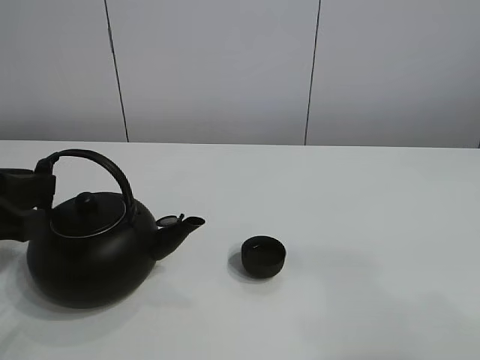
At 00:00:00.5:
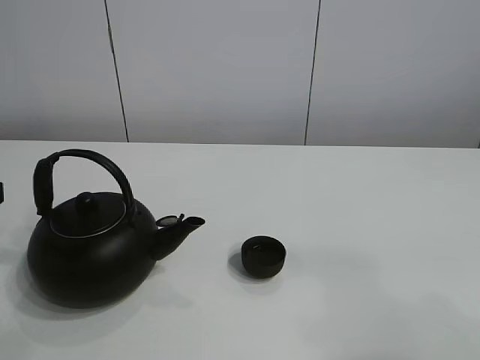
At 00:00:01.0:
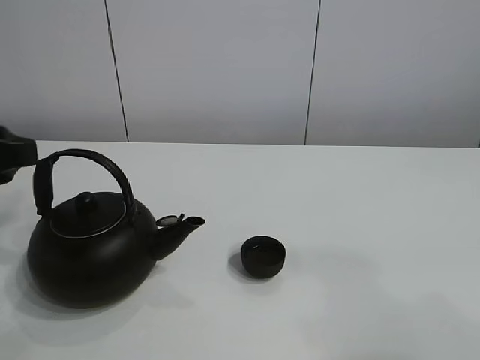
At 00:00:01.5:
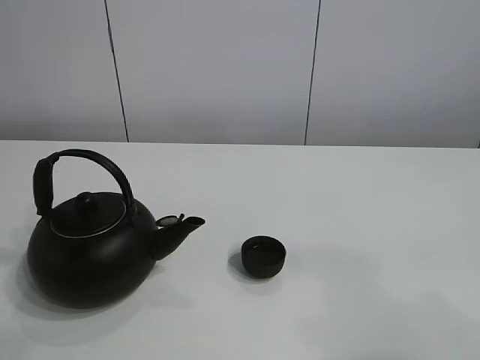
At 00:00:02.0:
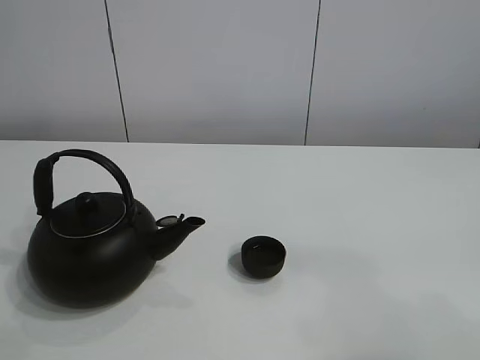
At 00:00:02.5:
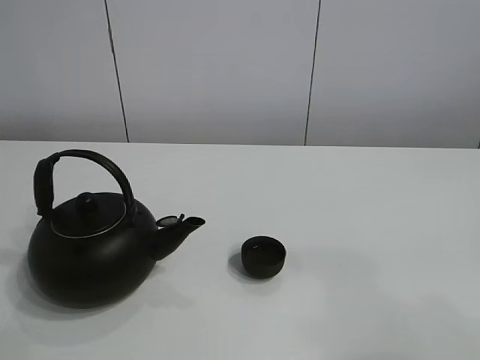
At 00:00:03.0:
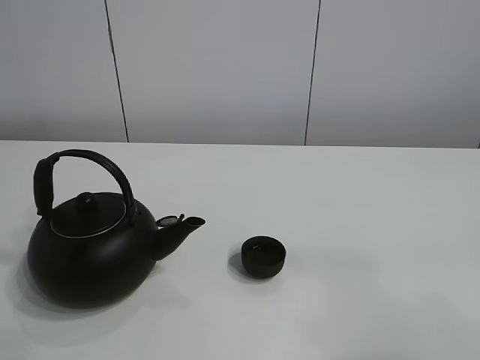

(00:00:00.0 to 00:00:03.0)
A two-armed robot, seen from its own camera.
Task of the whole recording: pour tea into the teacup.
00:00:00.0 - 00:00:01.5: The left gripper is displaced upward, forward and to the left by about 15 cm.

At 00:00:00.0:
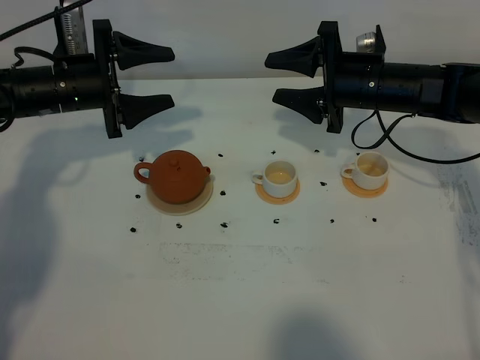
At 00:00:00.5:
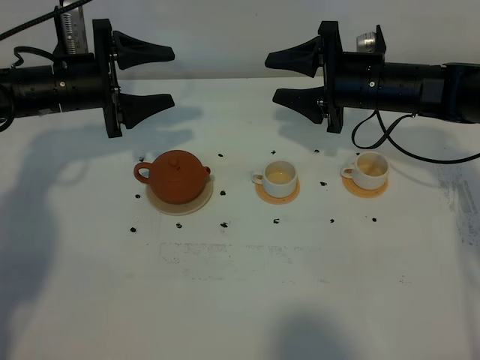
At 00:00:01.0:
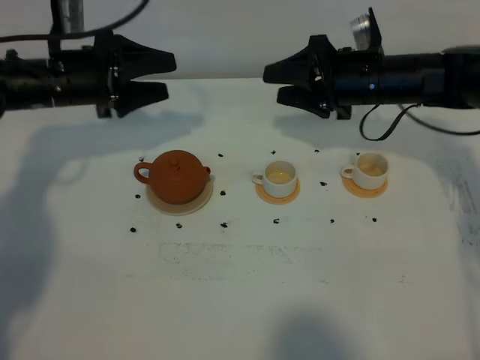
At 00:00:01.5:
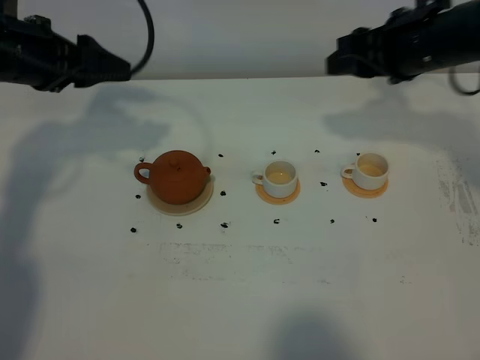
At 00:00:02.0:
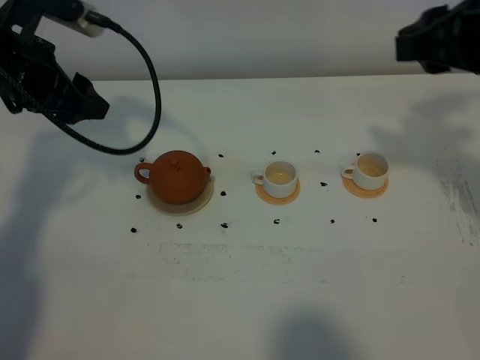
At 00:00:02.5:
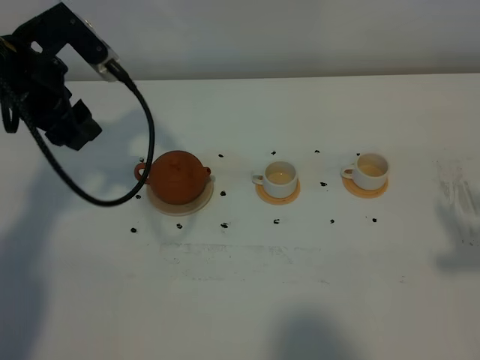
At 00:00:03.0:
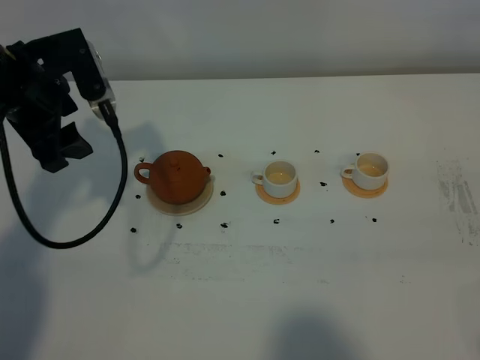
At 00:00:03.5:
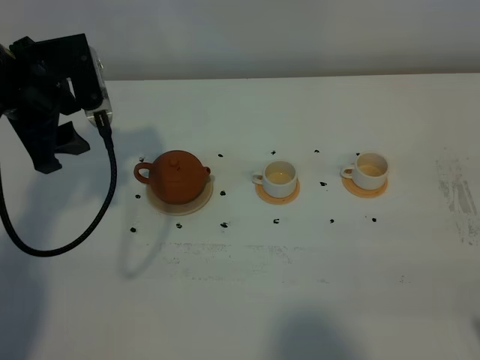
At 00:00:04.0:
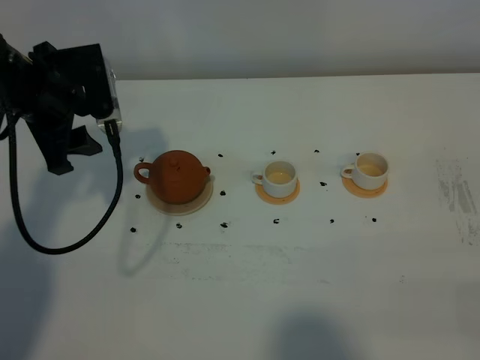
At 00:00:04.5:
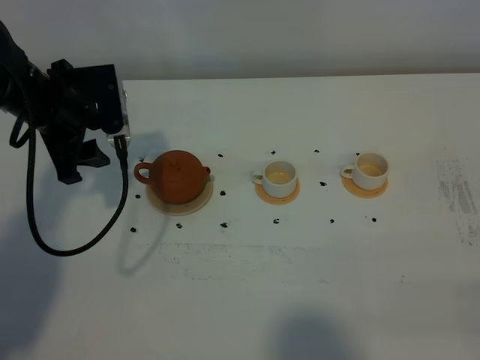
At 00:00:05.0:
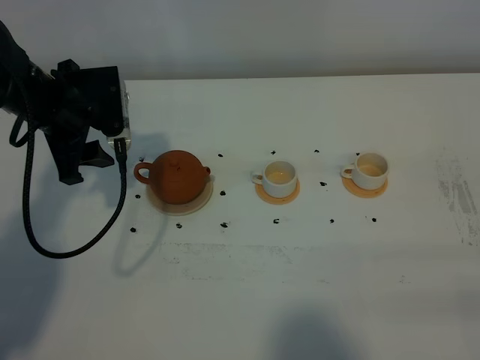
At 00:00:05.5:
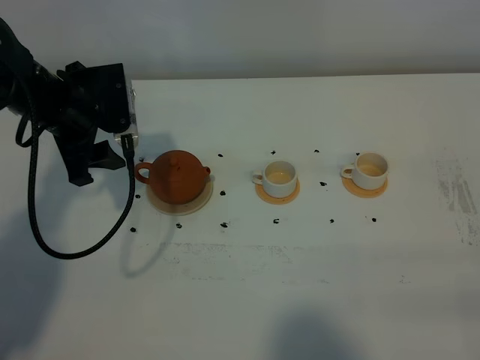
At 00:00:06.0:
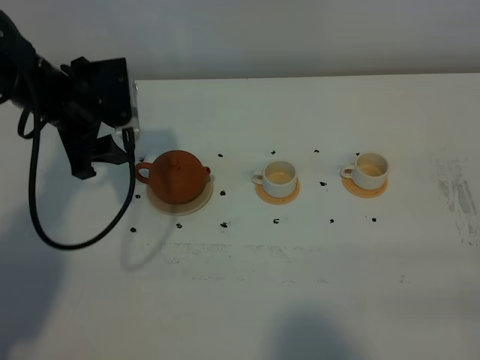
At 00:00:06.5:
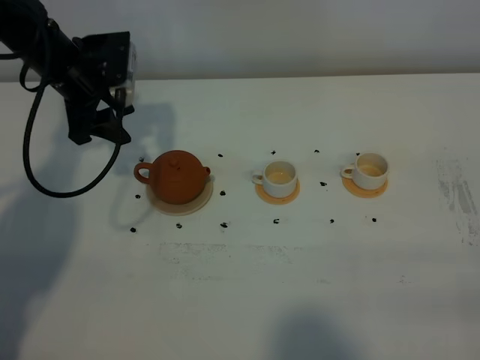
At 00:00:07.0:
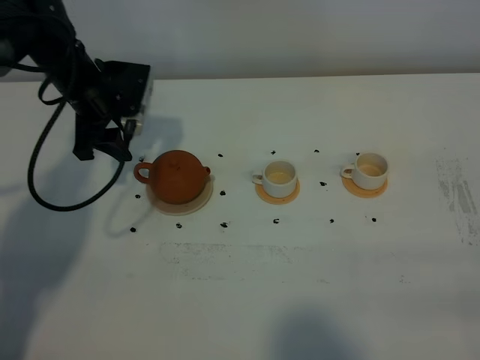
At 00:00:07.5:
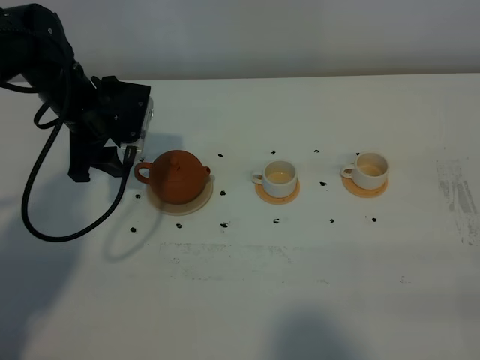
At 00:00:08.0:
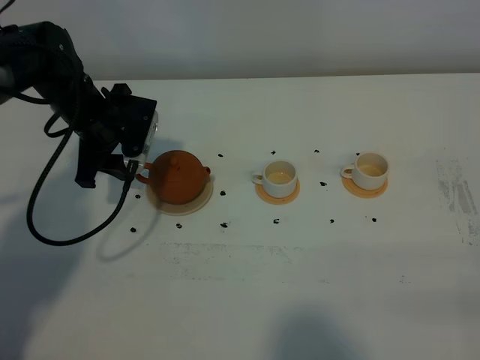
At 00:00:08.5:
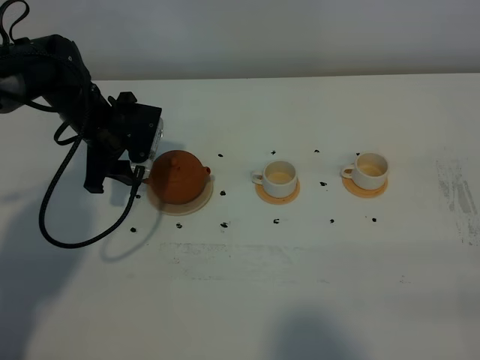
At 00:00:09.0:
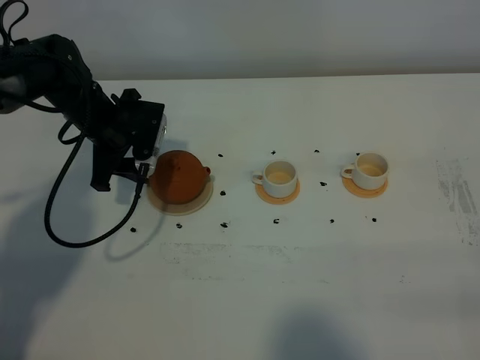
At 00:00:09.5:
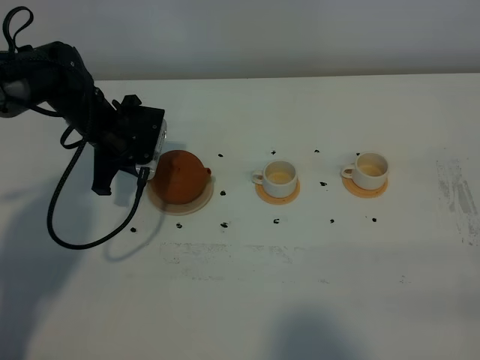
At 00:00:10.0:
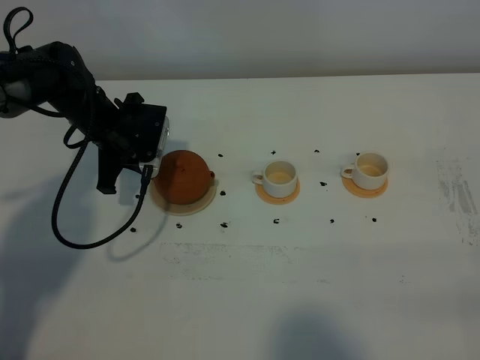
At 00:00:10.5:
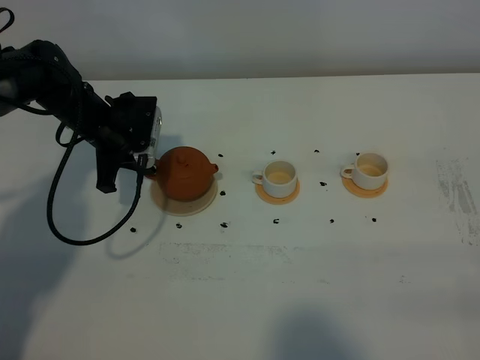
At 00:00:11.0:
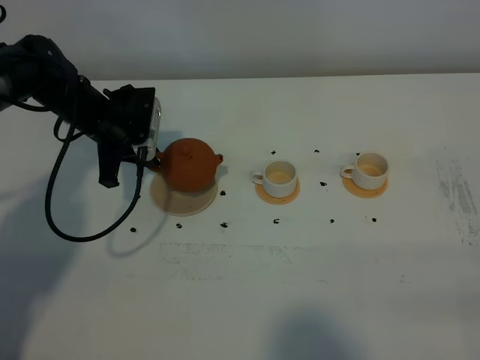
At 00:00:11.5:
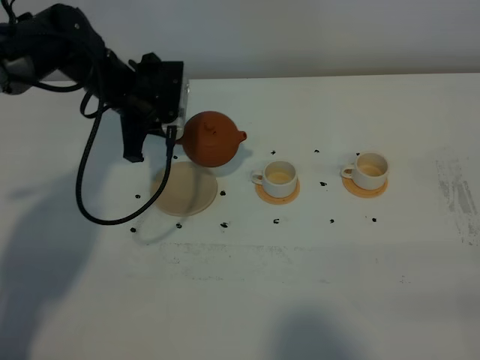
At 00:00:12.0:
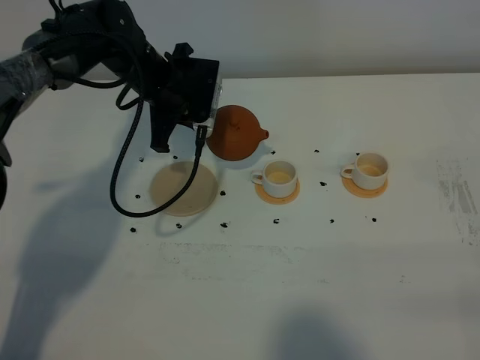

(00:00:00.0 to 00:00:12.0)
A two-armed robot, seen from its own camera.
Task of the whole recording: grasp the brown teapot and pour the tea into the two white teacups one by one, put the brown teapot back in its original place.
Step, 00:00:00.0 - 00:00:10.5: Pick up the teapot with the left gripper.
00:00:00.0 - 00:00:02.0: The right gripper goes roughly 25 cm upward, backward and to the right. Meanwhile the left gripper moves upward and backward, approximately 10 cm.
00:00:02.0 - 00:00:04.0: The right gripper shifts about 30 cm backward and downward.
00:00:06.0 - 00:00:08.0: The left gripper shifts some 5 cm downward.
00:00:08.0 - 00:00:10.0: The left gripper closes up.
00:00:10.0 - 00:00:12.0: The left gripper travels to the right and upward by about 10 cm.

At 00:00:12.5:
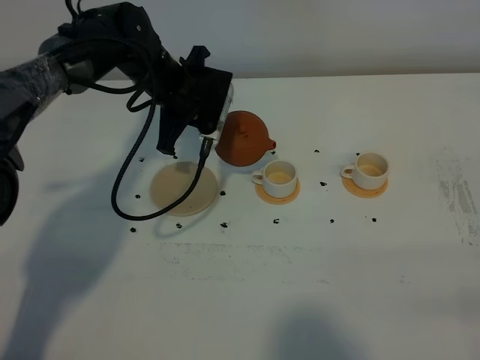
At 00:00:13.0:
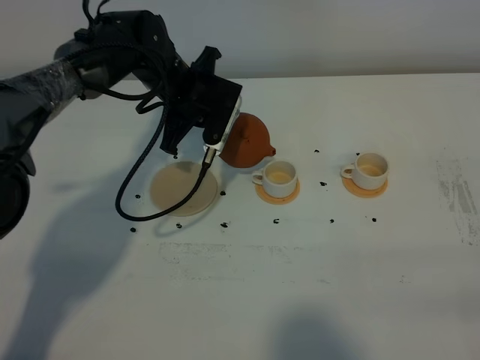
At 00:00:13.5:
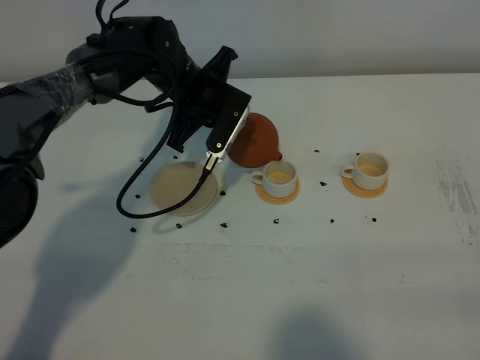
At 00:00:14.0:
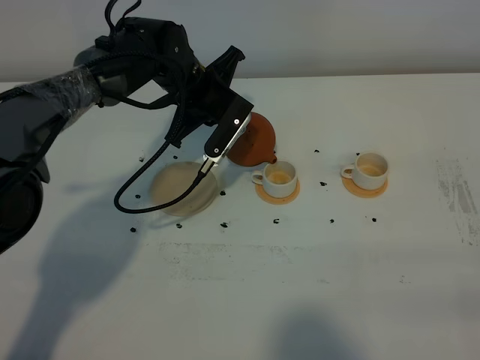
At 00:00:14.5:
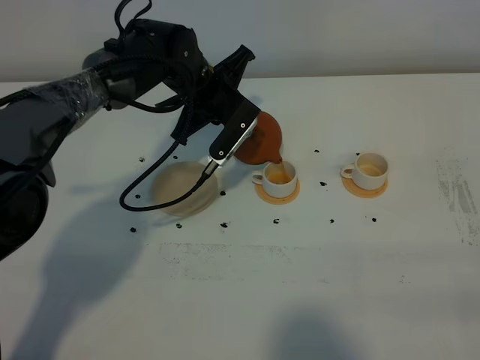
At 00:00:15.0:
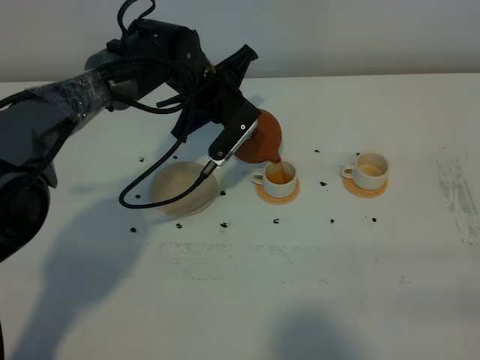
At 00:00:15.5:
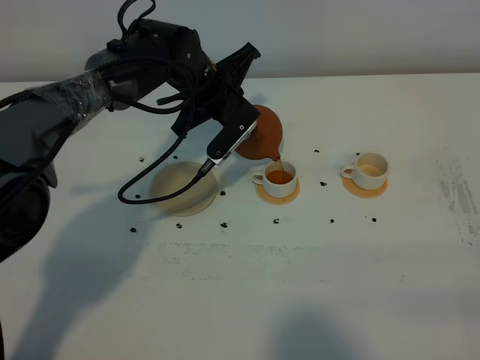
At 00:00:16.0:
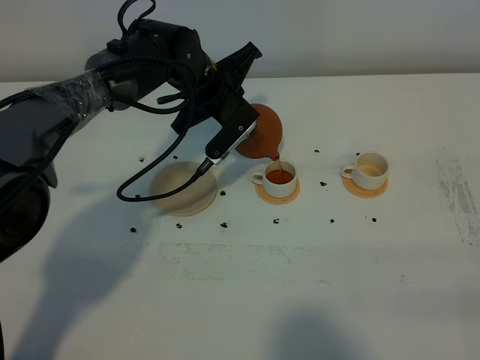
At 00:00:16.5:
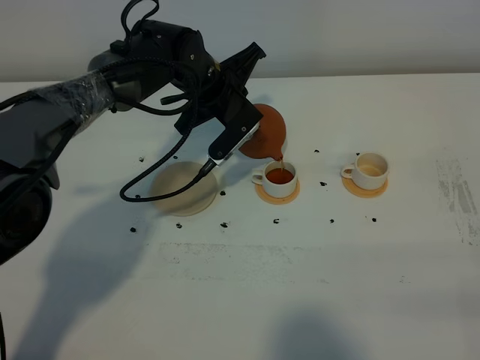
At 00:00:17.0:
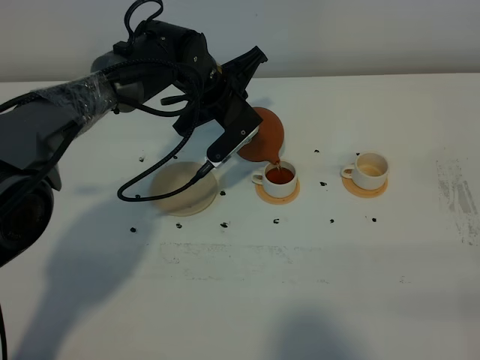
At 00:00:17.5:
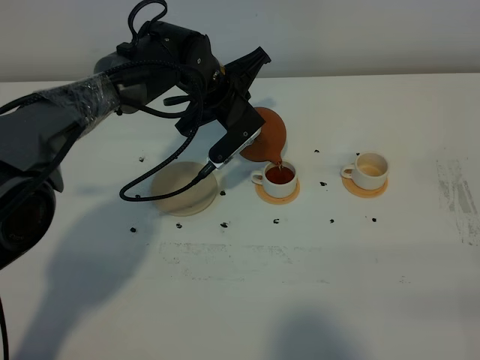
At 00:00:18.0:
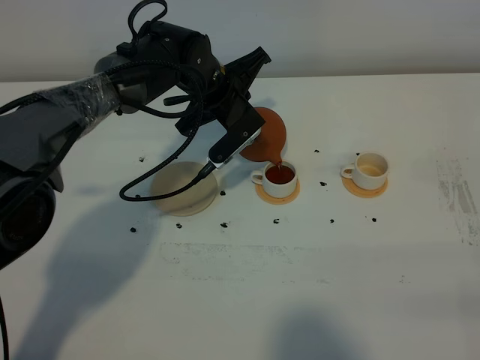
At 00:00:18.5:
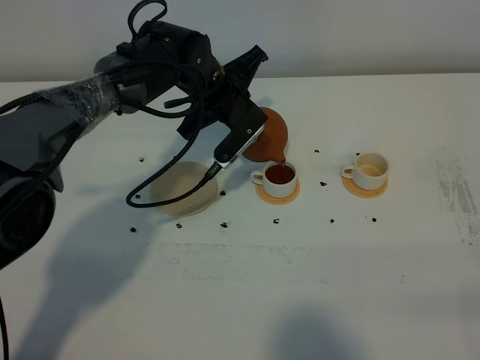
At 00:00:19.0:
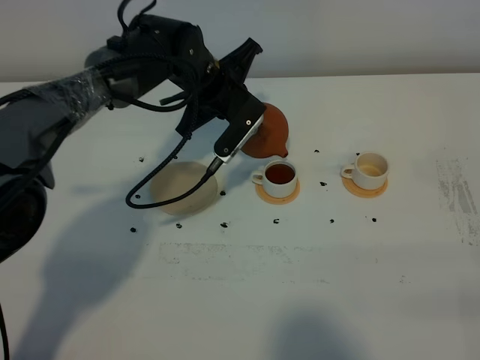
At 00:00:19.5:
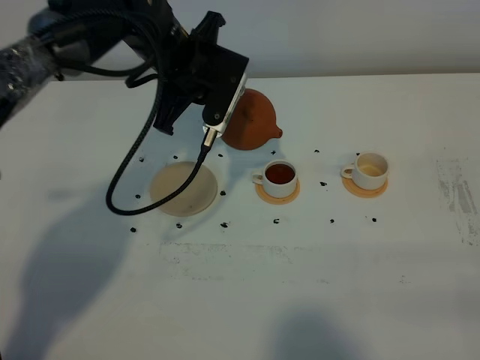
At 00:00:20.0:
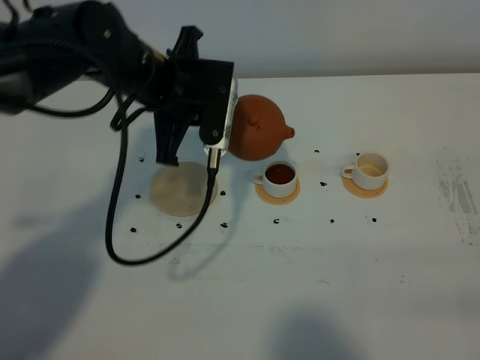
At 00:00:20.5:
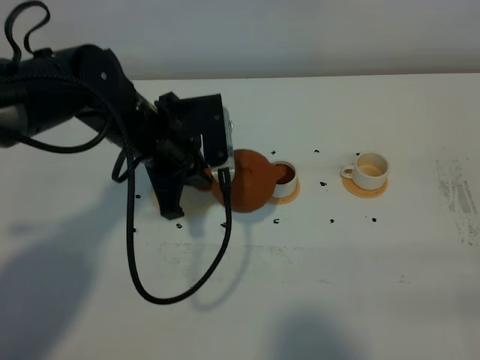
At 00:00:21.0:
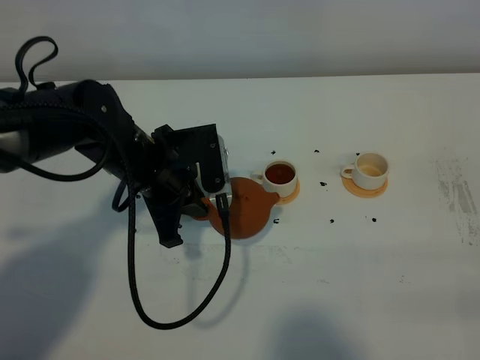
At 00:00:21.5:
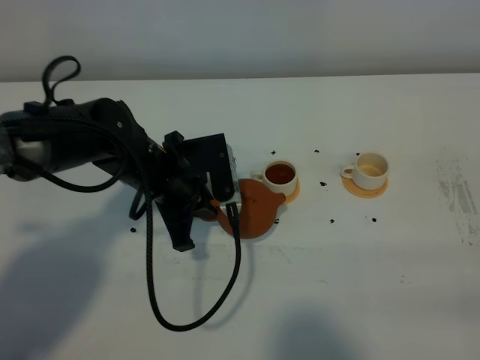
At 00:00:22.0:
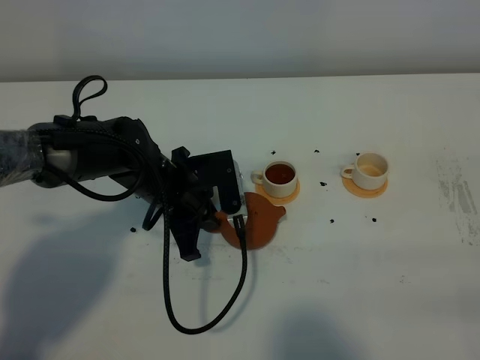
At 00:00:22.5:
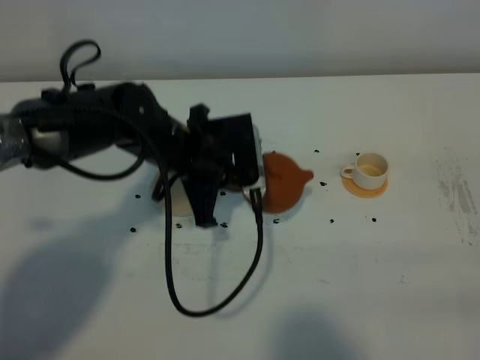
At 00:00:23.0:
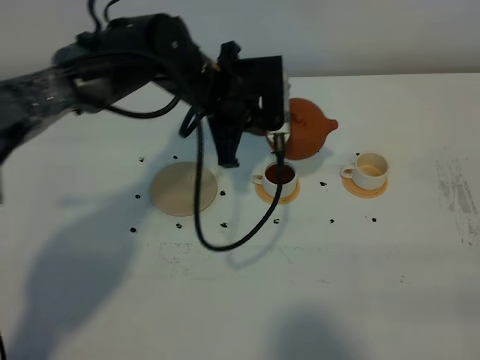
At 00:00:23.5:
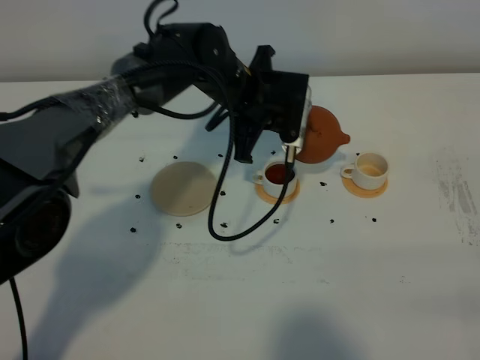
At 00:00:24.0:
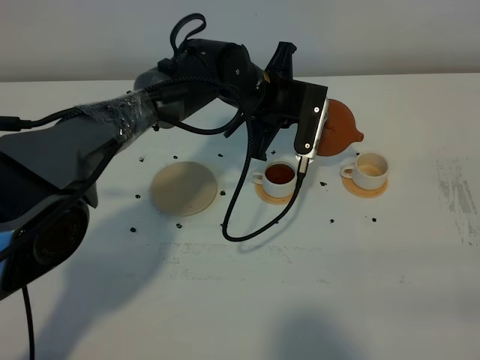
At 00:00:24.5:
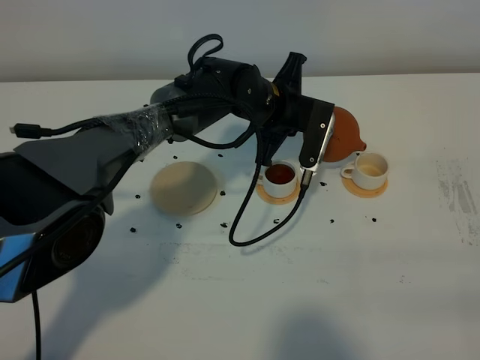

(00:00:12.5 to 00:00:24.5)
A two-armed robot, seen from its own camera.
Task of the whole recording: grasp the brown teapot and pour the tea into the two white teacups one by one, put the brown teapot back in its original place.
00:00:14.5 - 00:00:16.5: The grippers stay close to where they were, moving slightly.
00:00:16.5 - 00:00:18.5: Both grippers stay put.
00:00:18.5 - 00:00:20.5: The left gripper moves backward and to the left, approximately 15 cm.
00:00:20.5 - 00:00:22.5: The left gripper moves some 10 cm downward and comes back.
00:00:22.5 - 00:00:24.5: The left gripper moves to the right and forward, approximately 15 cm.
